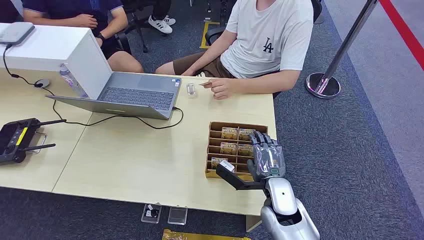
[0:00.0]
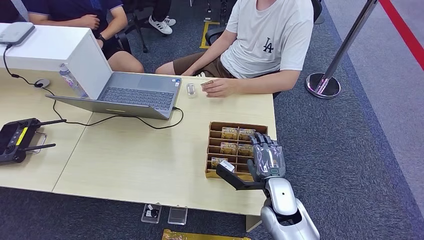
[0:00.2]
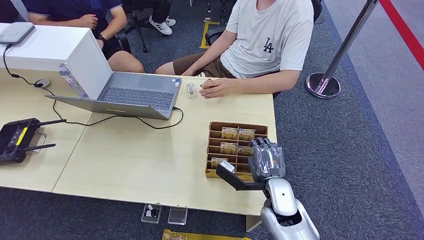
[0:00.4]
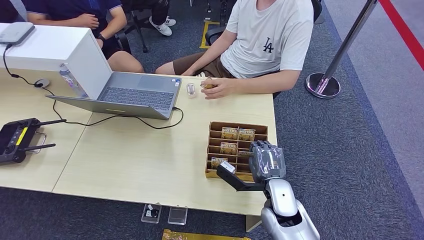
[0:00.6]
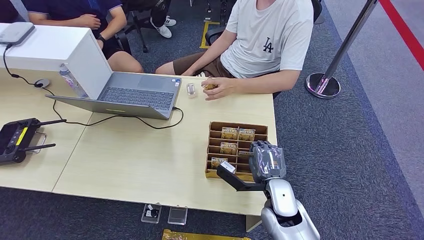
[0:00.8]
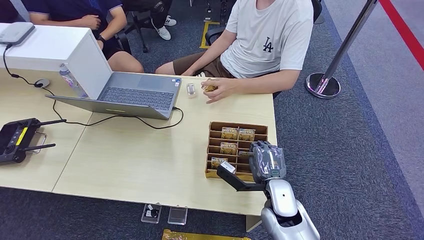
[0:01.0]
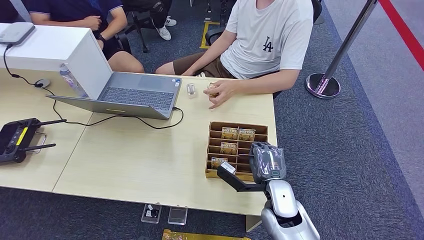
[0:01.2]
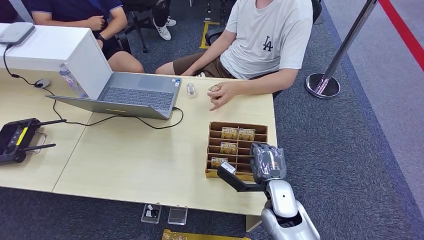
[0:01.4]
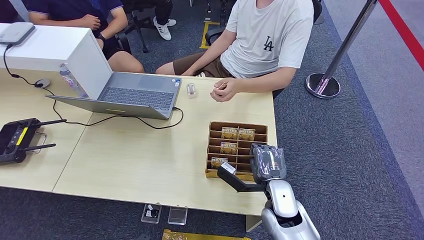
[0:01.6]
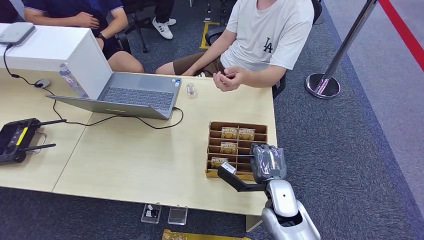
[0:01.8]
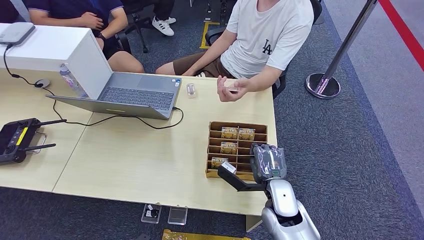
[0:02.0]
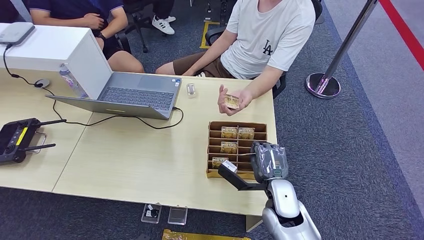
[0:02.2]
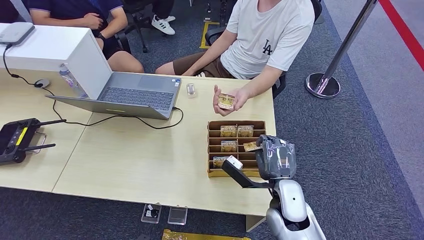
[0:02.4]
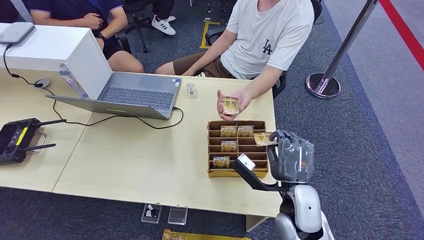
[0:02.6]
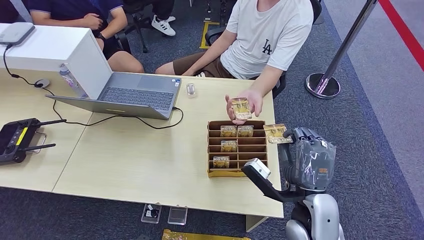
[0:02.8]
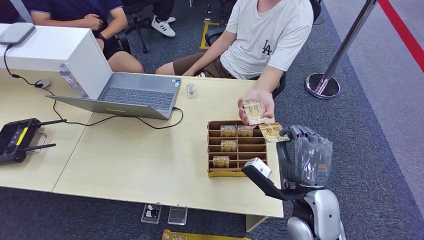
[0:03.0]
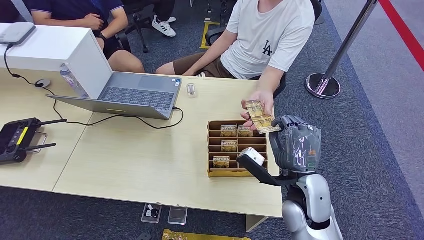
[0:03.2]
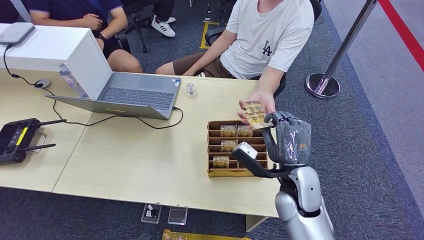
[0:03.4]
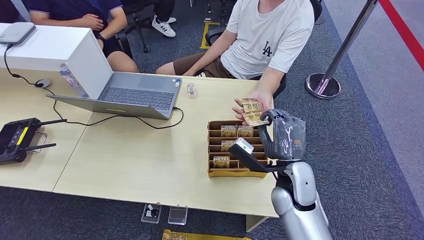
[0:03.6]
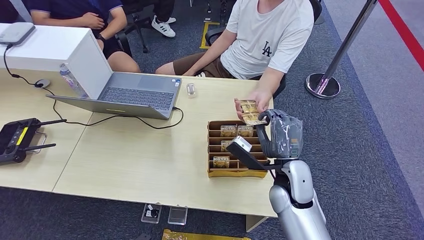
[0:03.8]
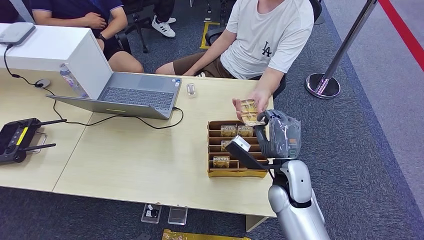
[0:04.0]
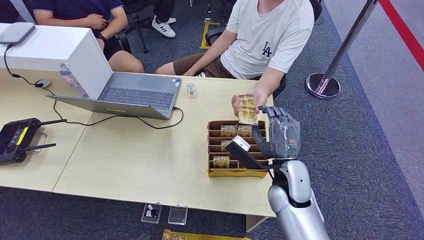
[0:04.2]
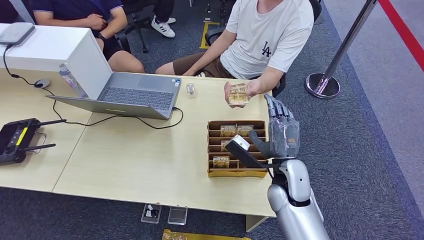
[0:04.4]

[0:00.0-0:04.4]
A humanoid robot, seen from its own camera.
Step, 0:00.0 to 0:02.6: Pick up the room card from the card holder.
Step, 0:02.8 to 0:04.4: Hand the room card to the target.
0:01.4 to 0:03.0: The right hand is displaced upward by approximately 10 cm.
0:03.0 to 0:04.4: The right hand travels forward by roughly 5 cm.
